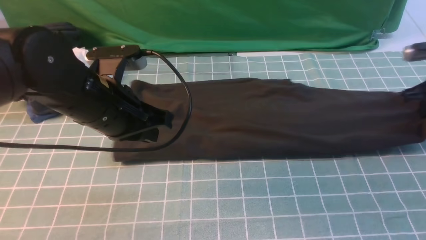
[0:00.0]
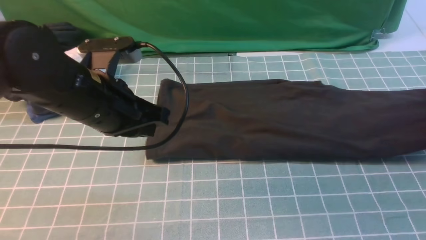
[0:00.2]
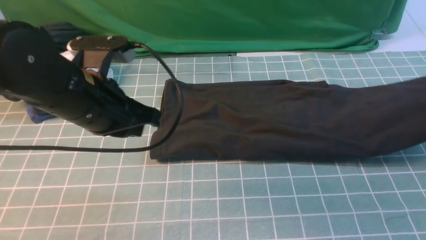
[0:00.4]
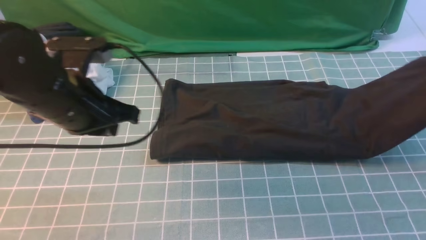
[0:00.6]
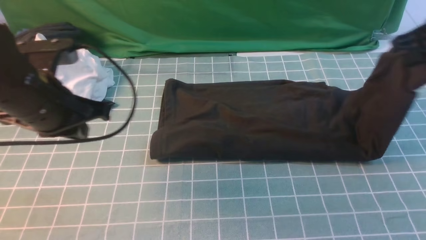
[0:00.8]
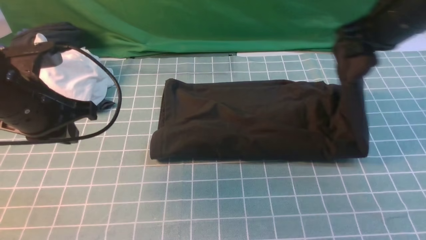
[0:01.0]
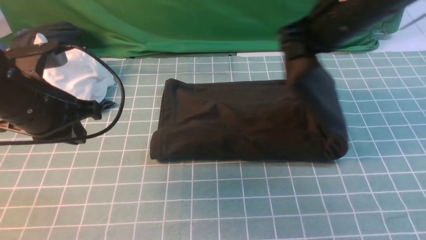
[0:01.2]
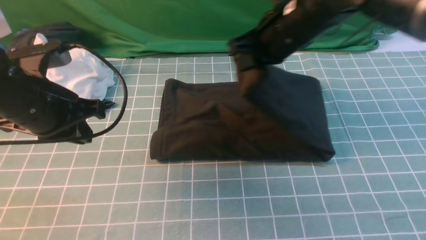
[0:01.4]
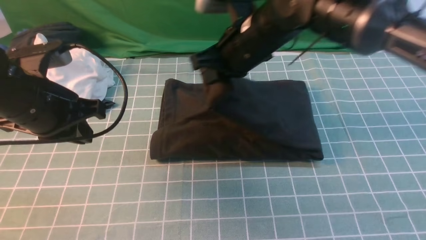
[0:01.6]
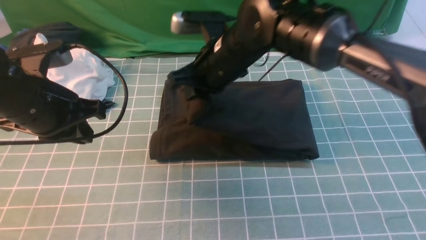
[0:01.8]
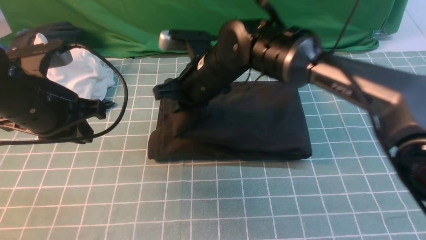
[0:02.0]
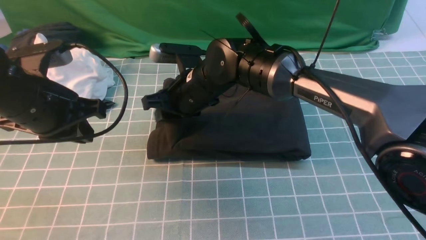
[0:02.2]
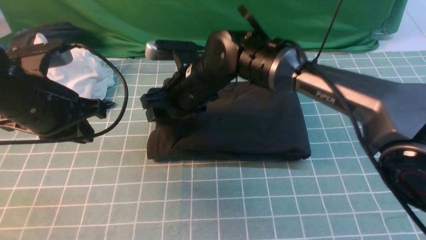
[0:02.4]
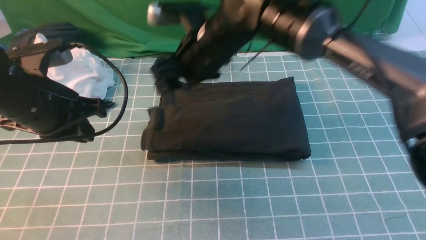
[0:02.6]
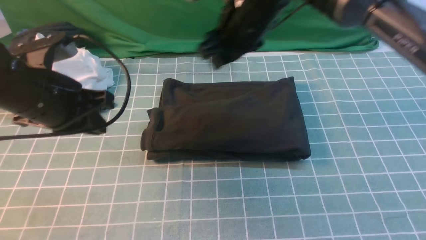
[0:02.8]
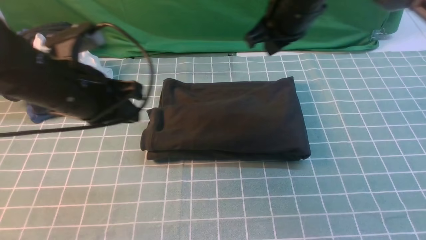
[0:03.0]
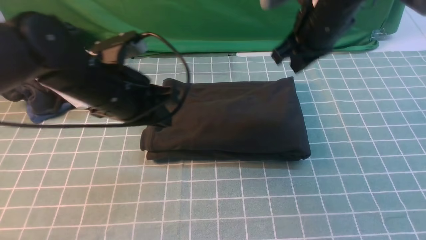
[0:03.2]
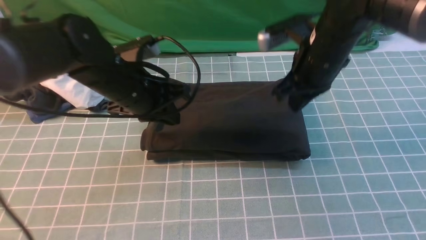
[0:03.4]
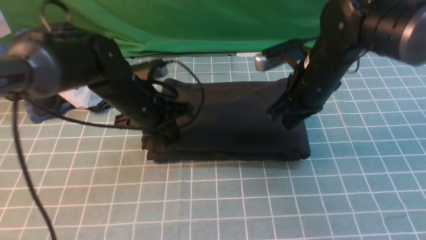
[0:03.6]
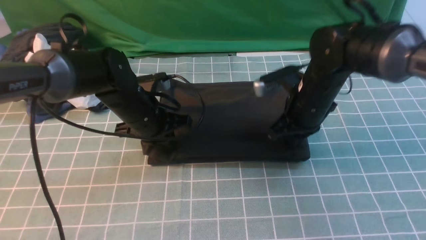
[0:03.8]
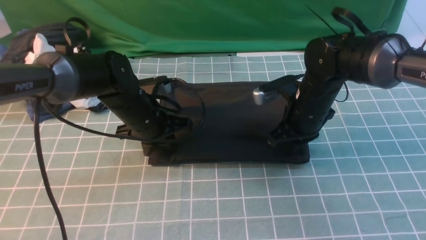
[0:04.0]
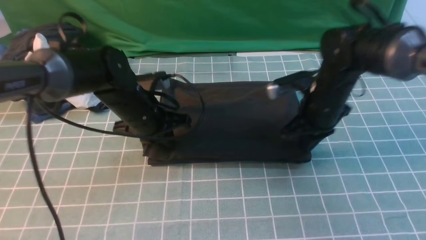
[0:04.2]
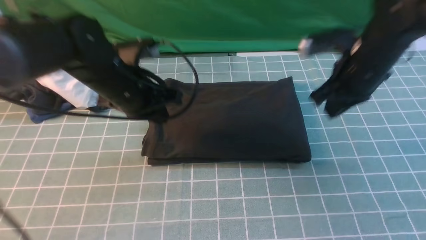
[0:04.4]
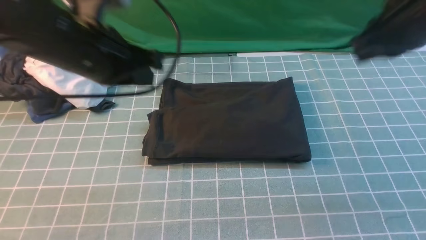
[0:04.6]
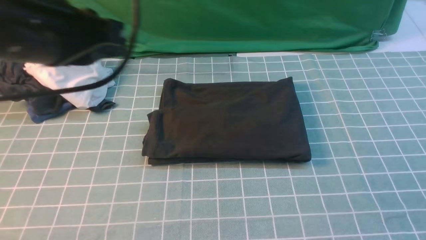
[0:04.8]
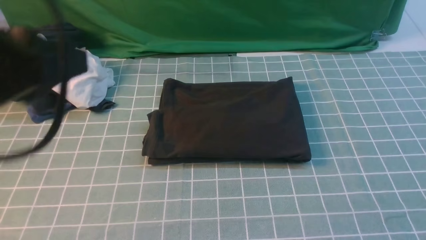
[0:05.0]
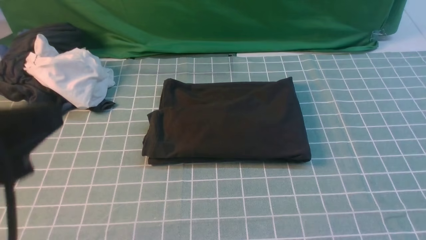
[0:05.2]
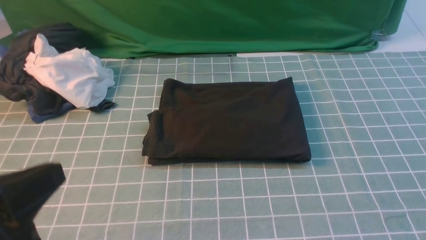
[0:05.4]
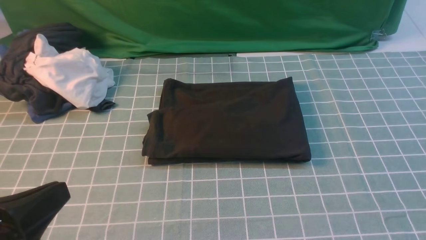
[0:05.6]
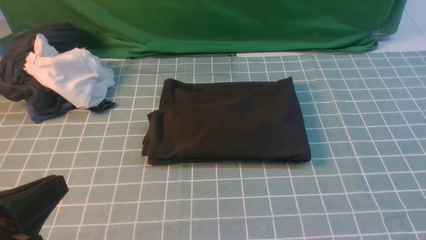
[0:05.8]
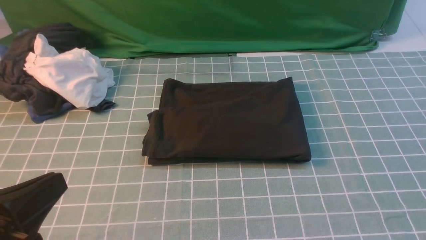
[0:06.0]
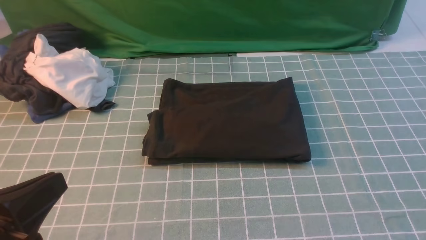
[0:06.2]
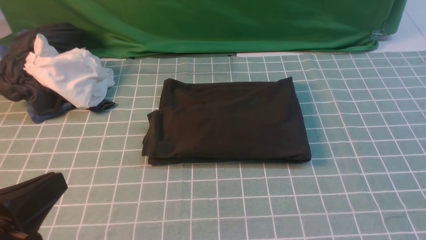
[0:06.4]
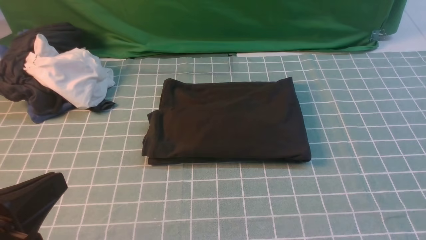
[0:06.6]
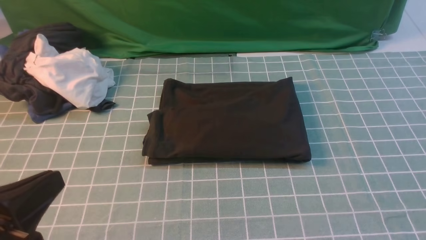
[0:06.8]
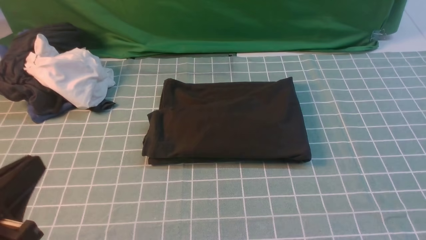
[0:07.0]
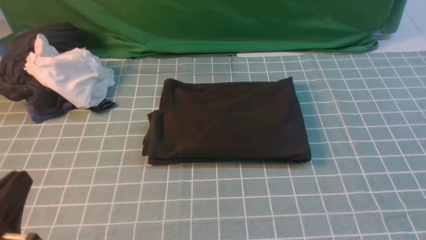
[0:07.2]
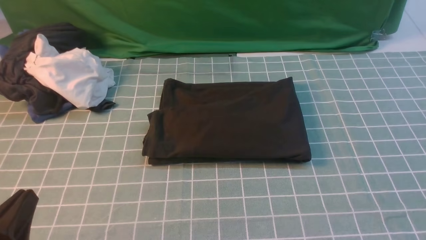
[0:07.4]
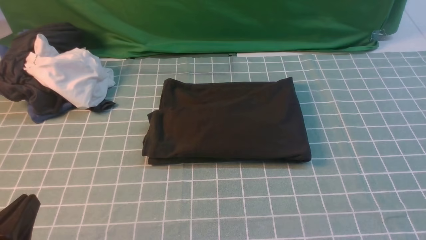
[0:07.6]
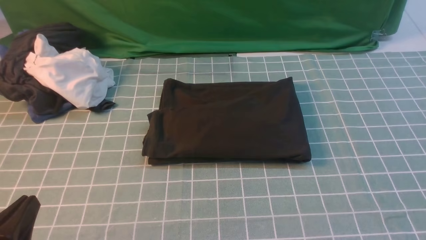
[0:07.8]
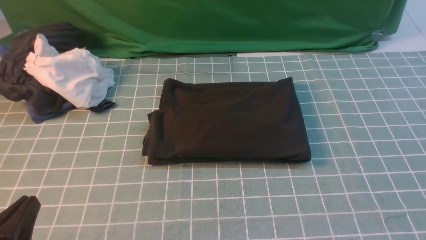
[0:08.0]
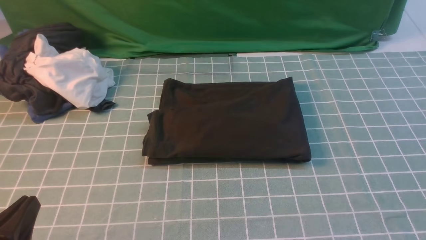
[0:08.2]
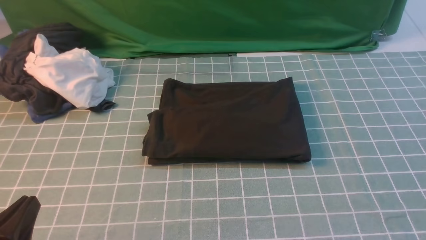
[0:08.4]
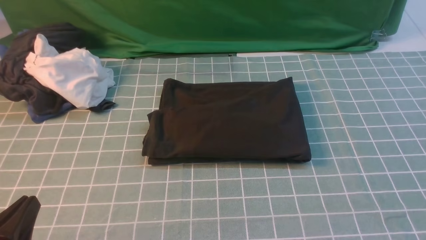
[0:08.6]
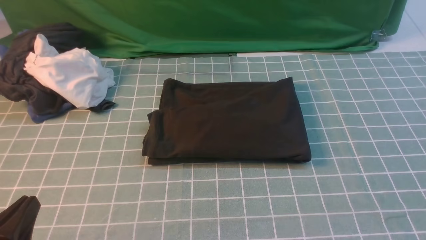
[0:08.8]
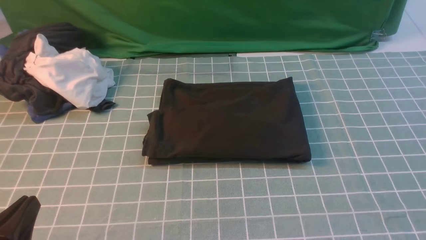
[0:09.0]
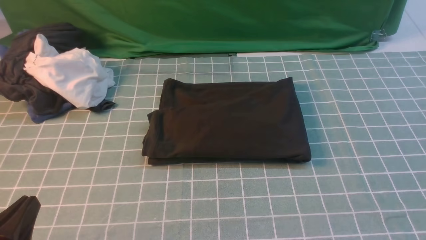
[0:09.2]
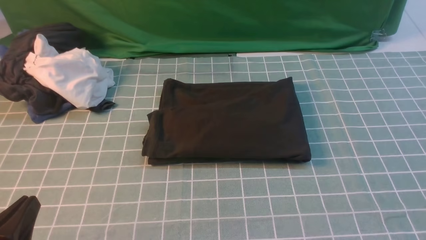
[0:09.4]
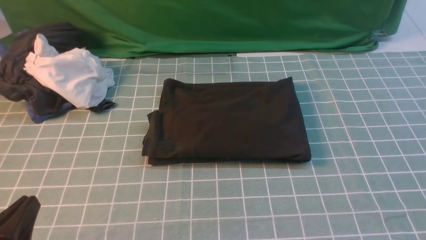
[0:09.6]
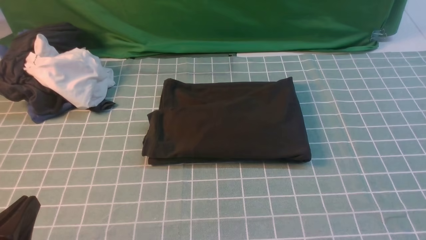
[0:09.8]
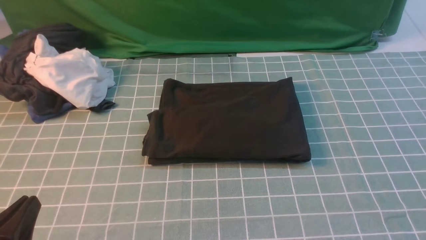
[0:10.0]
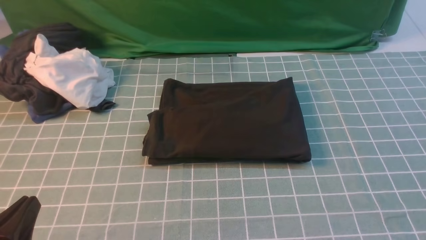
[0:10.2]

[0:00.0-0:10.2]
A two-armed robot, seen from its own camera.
Step, 0:00.0 to 0:02.6: use the right arm to drag the right edge of the fabric to the left and folds it over the left edge.
0:00.0 to 0:01.4: The right gripper travels to the left by about 30 cm. The left gripper moves to the left, some 10 cm.
0:01.4 to 0:03.0: The right gripper reaches some 10 cm to the left, then returns, and opens and closes again; the left gripper changes place by some 5 cm.
0:03.0 to 0:04.4: The left gripper goes downward and returns, approximately 10 cm each way, while the right gripper heads to the right and backward, covering some 10 cm, and moves roughly 15 cm downward and comes back.
0:04.4 to 0:05.8: The two grippers go roughly 30 cm backward.
0:05.8 to 0:07.2: The left gripper shifts roughly 5 cm downward.
0:07.2 to 0:08.8: The grippers make only small movements.

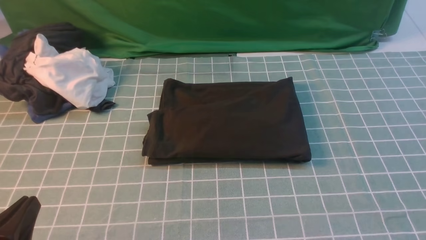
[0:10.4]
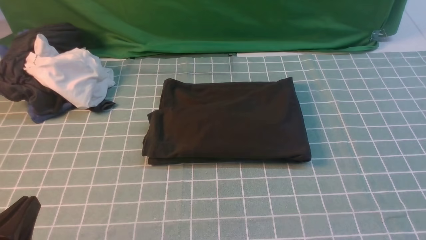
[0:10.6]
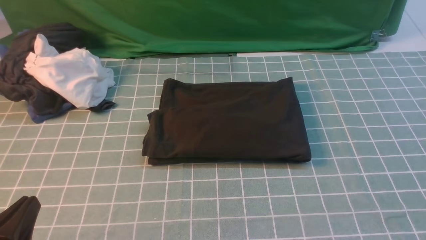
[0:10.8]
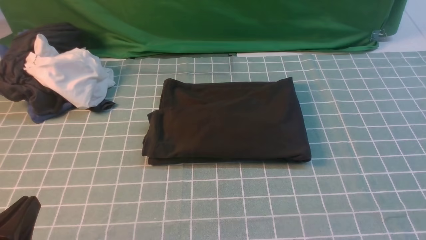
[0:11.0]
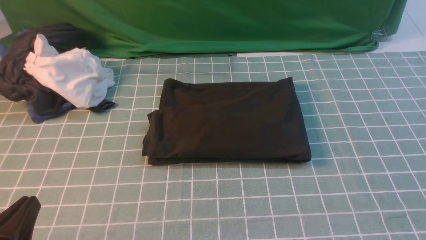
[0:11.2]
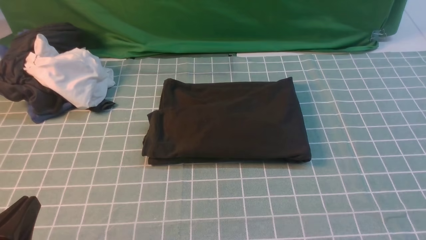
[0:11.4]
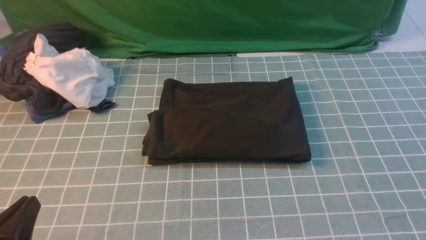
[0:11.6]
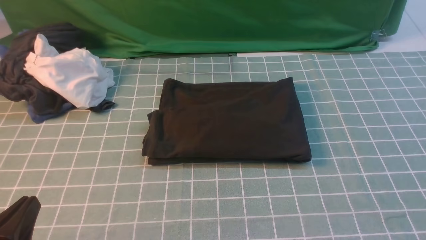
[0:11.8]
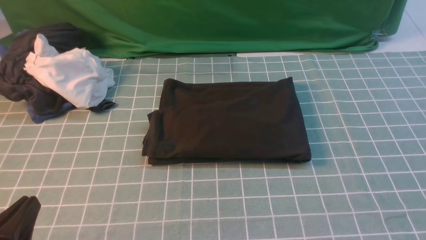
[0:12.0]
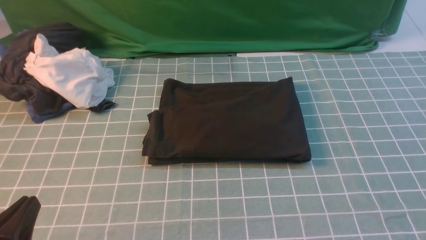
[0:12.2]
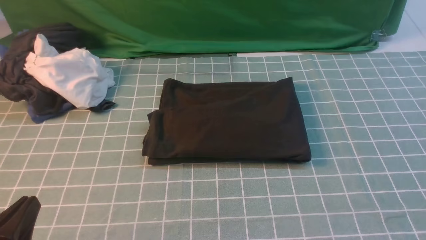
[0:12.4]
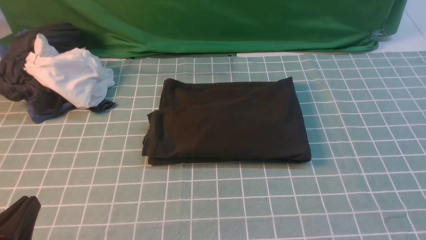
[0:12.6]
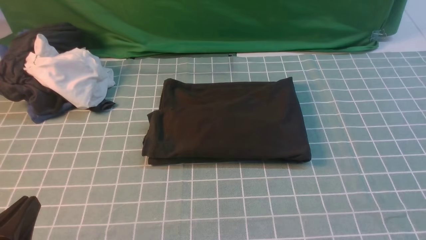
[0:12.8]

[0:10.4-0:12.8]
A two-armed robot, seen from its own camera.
0:10.4 to 0:12.8: Both grippers stay put.
